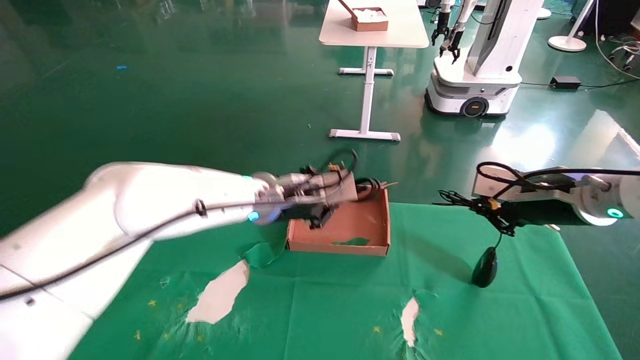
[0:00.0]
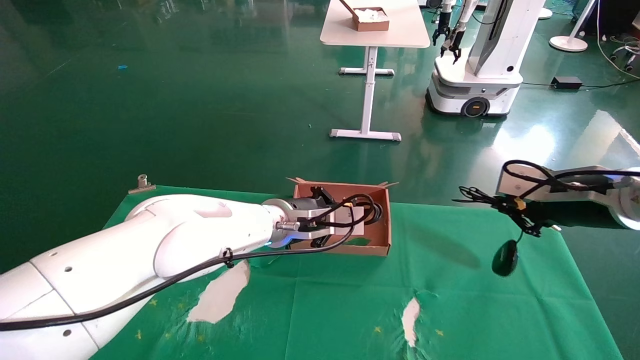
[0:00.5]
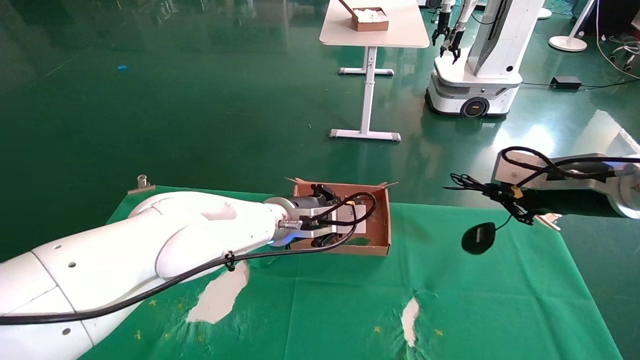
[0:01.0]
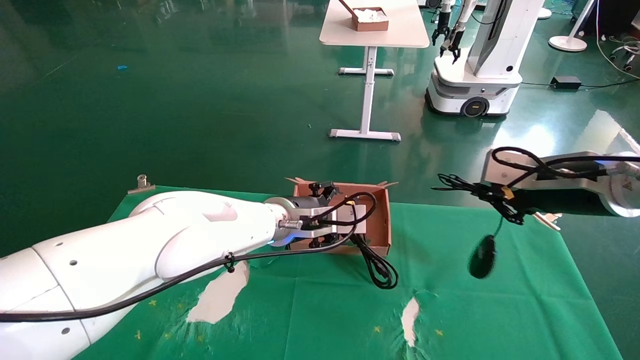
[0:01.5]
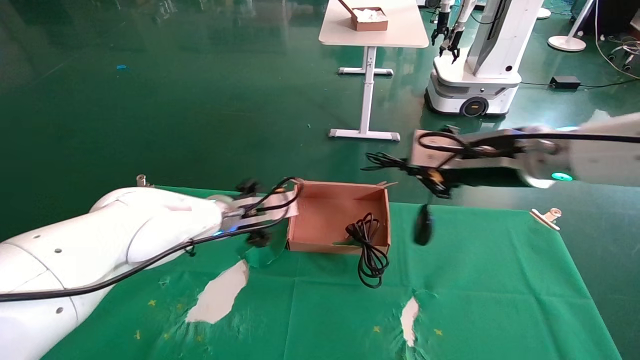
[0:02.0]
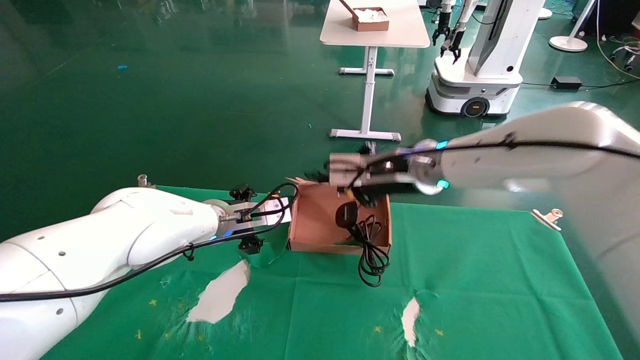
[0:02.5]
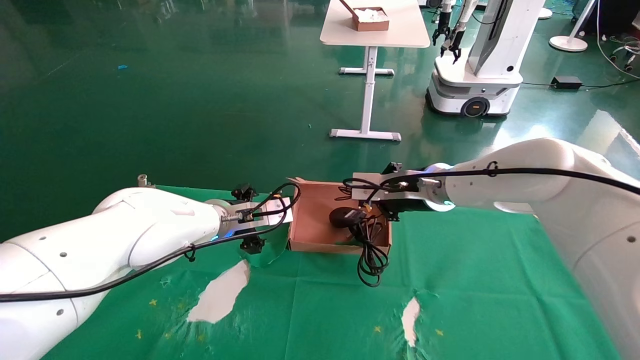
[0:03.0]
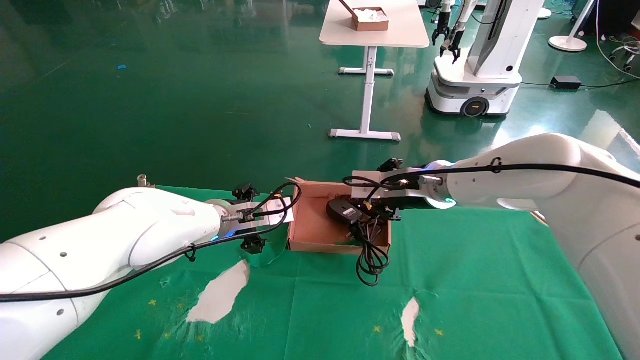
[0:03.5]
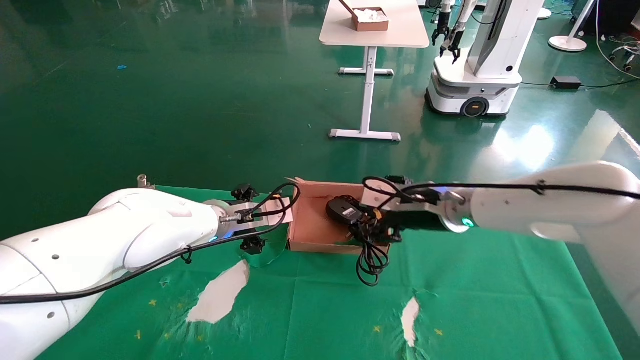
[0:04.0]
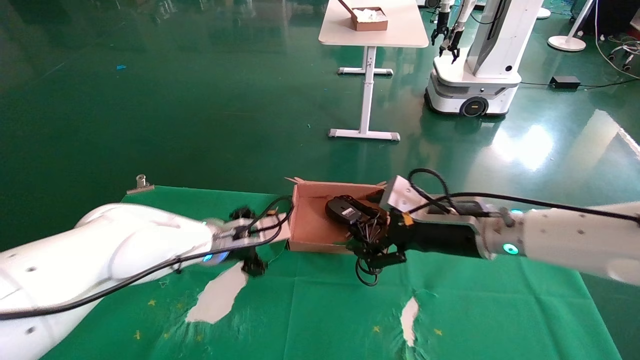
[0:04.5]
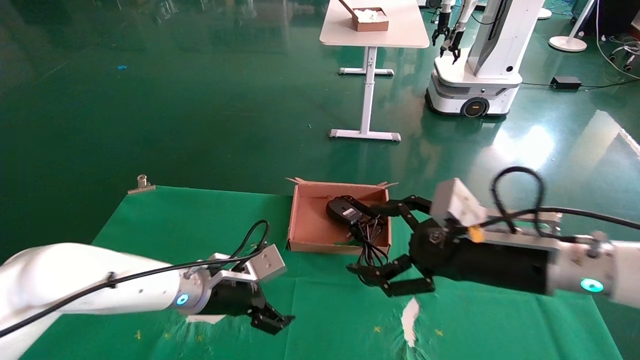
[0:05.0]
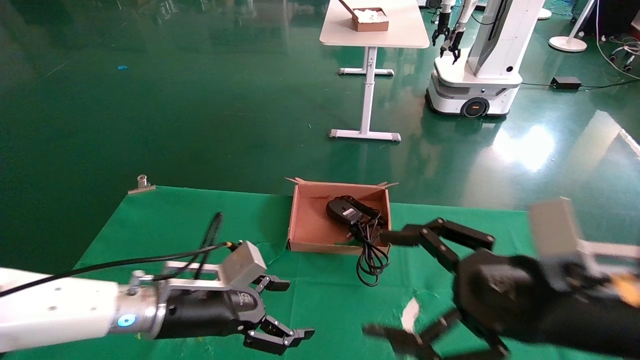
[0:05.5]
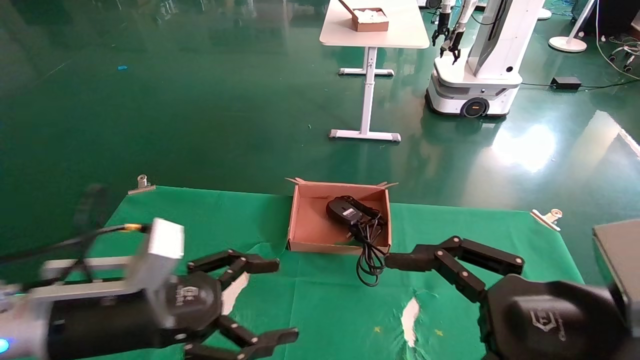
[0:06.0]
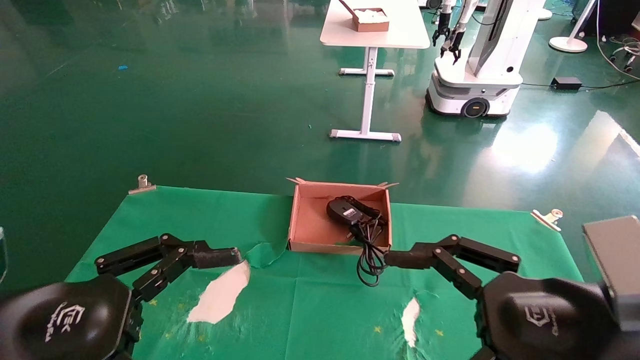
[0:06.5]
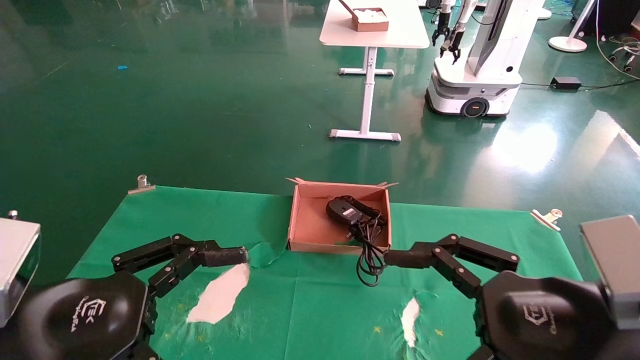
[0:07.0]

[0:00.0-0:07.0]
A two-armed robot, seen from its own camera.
Step, 0:00.0 to 0:04.0: Place the mouse and power cord into the box.
0:00.0 to 0:02.0: The left gripper goes roughly 5 cm to the left, and opens its fingers; the right gripper moves to the left and upward, about 10 cm.
0:02.0 to 0:03.5: The right gripper moves forward, to the left and downward, approximately 15 cm.
0:03.5 to 0:05.0: The right gripper travels backward and to the right by about 15 cm, and opens its fingers. Meanwhile the left gripper moves downward and backward, some 10 cm.
0:05.0 to 0:07.0: The left gripper travels backward and upward by roughly 25 cm. The right gripper is displaced backward by approximately 15 cm.
